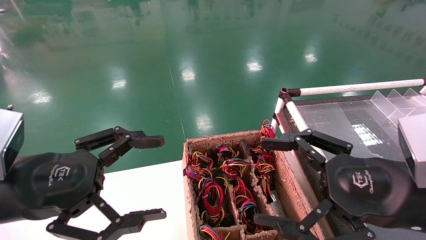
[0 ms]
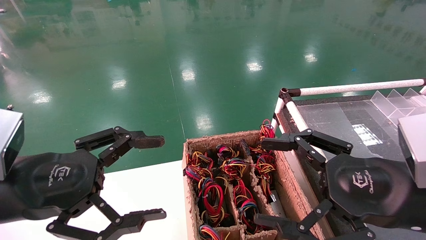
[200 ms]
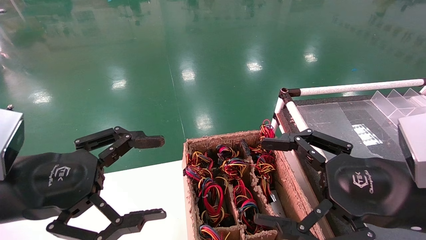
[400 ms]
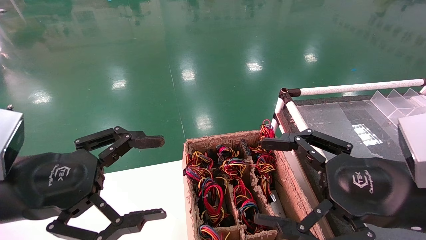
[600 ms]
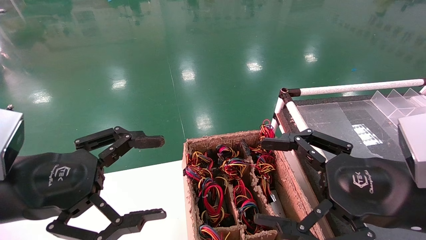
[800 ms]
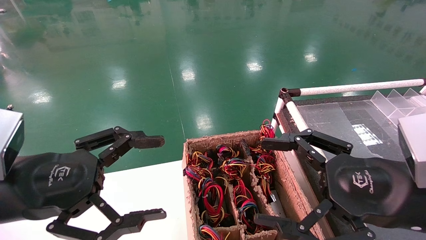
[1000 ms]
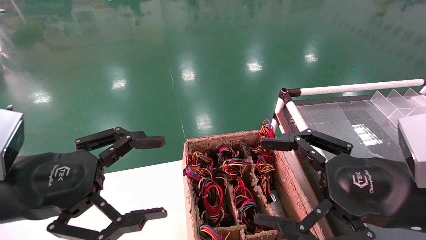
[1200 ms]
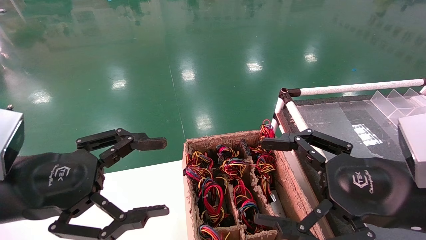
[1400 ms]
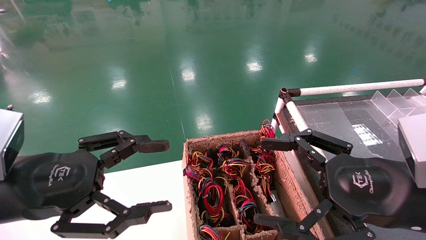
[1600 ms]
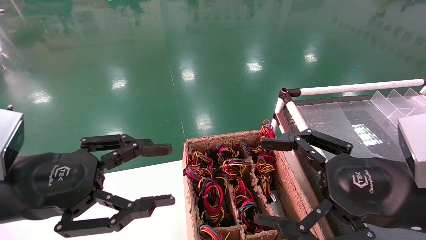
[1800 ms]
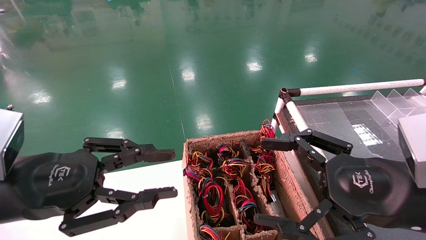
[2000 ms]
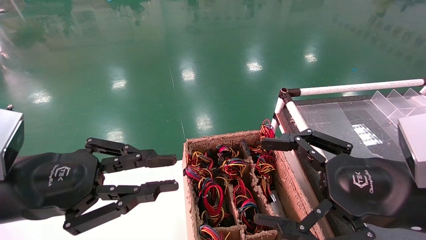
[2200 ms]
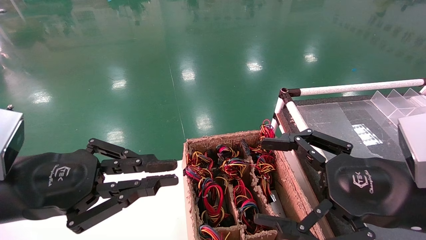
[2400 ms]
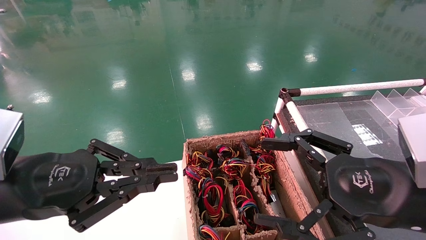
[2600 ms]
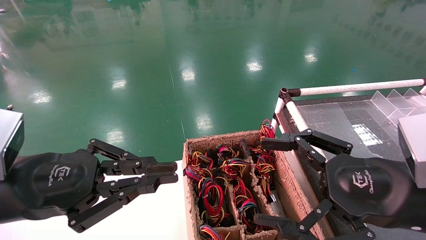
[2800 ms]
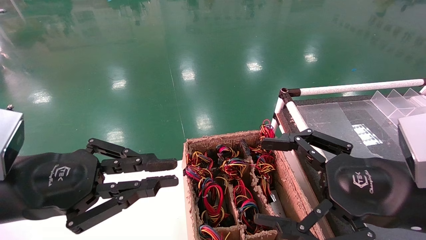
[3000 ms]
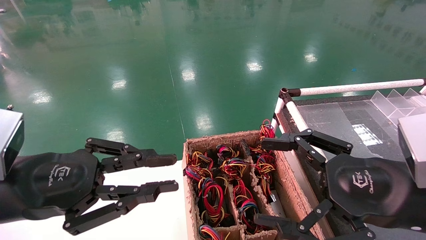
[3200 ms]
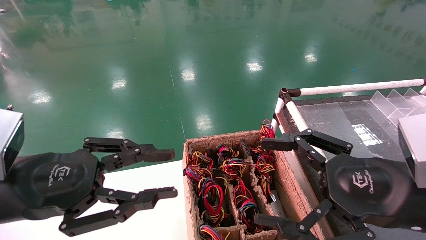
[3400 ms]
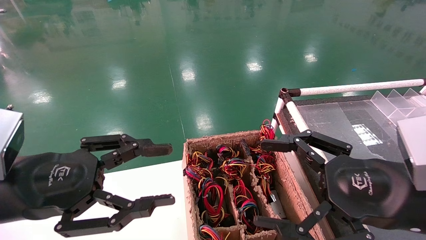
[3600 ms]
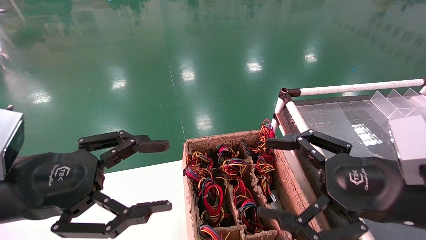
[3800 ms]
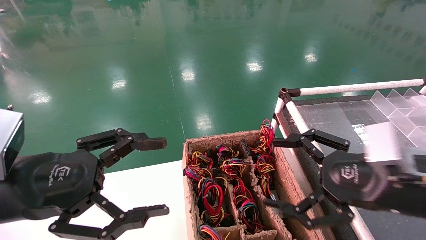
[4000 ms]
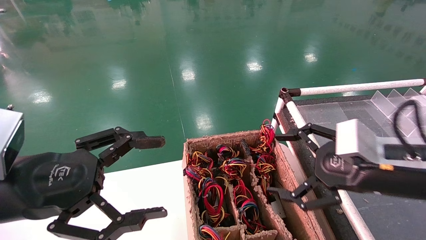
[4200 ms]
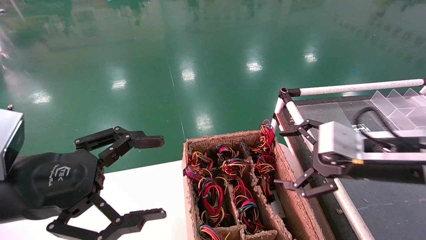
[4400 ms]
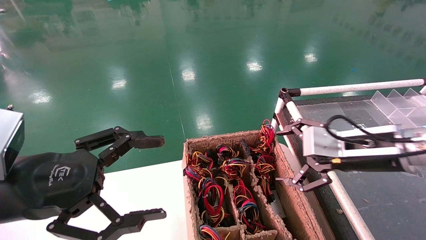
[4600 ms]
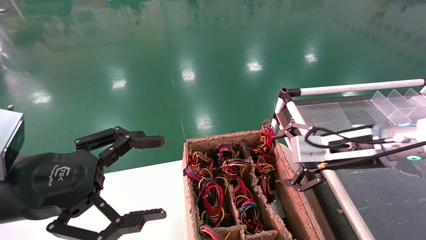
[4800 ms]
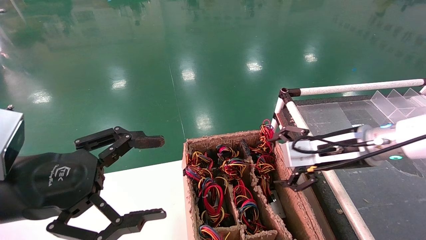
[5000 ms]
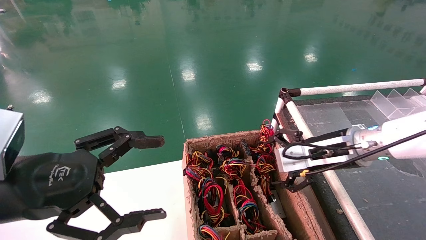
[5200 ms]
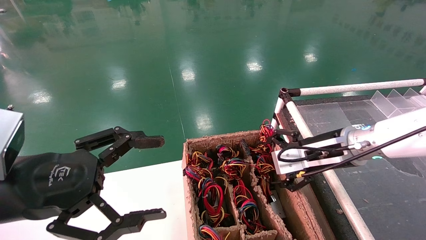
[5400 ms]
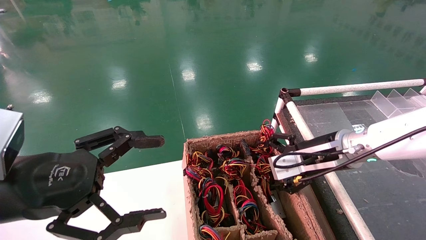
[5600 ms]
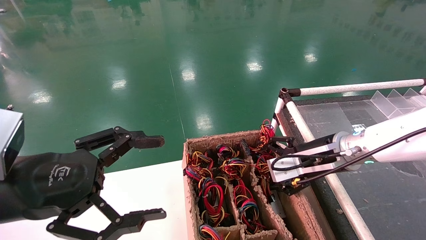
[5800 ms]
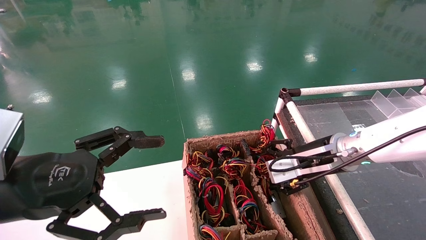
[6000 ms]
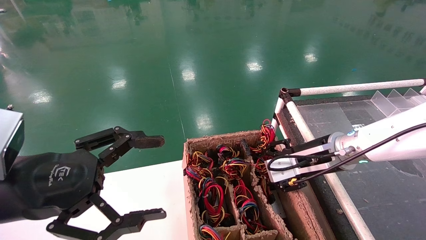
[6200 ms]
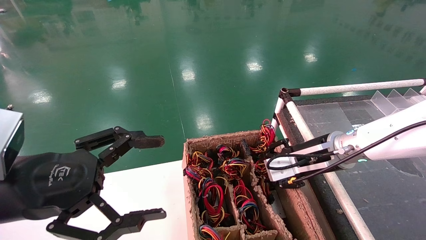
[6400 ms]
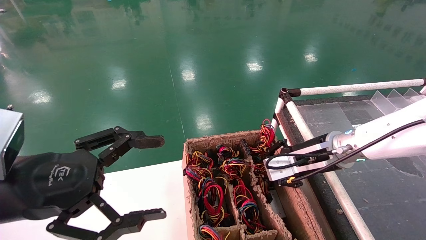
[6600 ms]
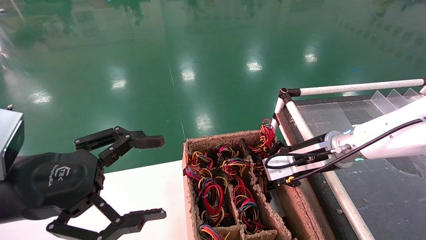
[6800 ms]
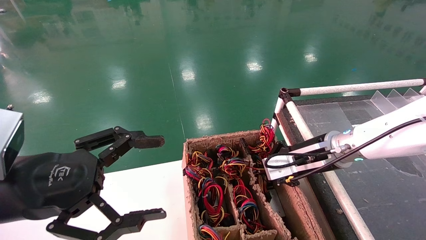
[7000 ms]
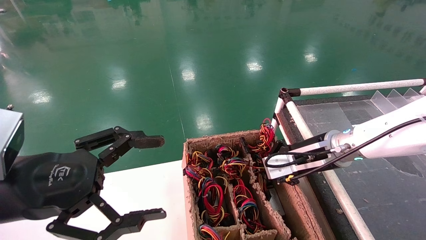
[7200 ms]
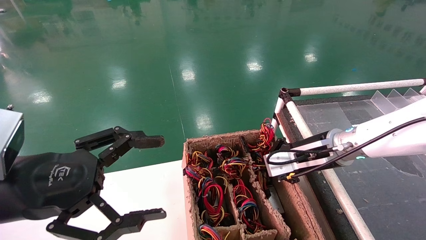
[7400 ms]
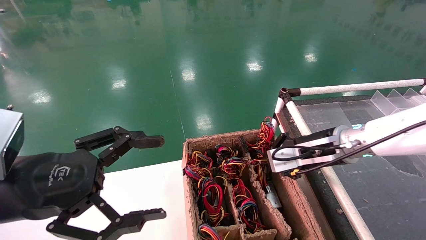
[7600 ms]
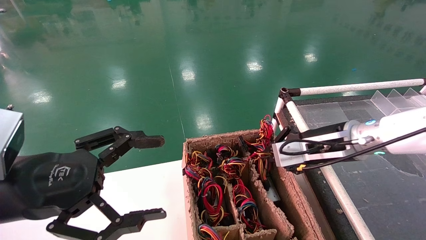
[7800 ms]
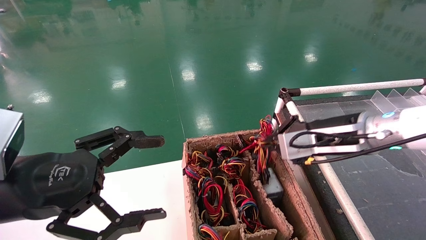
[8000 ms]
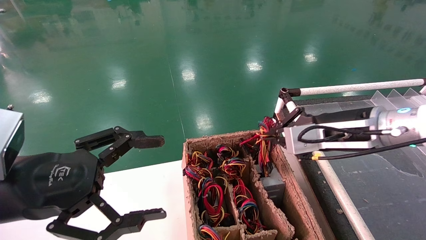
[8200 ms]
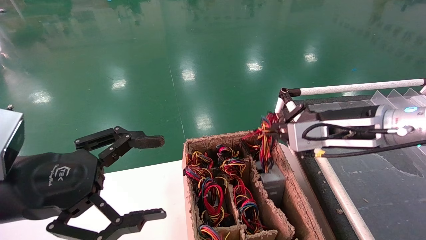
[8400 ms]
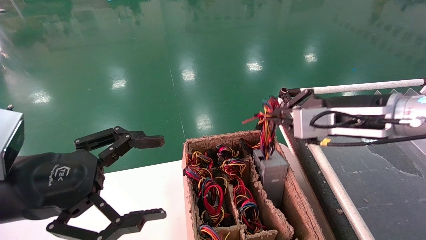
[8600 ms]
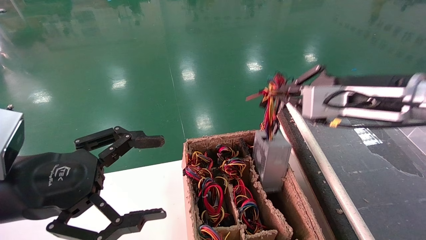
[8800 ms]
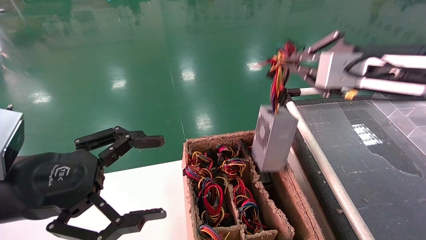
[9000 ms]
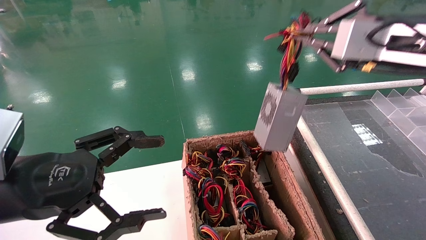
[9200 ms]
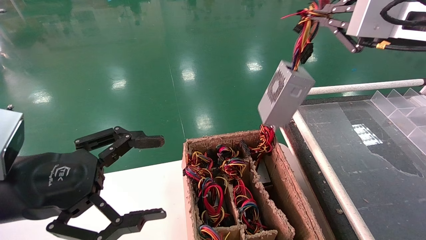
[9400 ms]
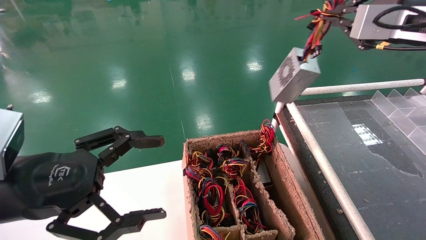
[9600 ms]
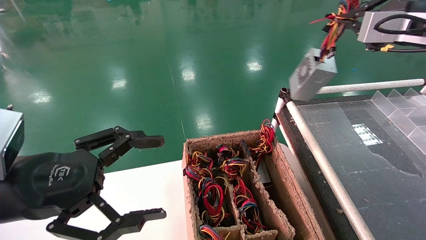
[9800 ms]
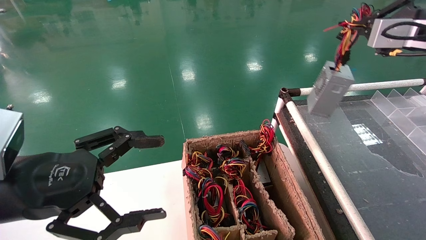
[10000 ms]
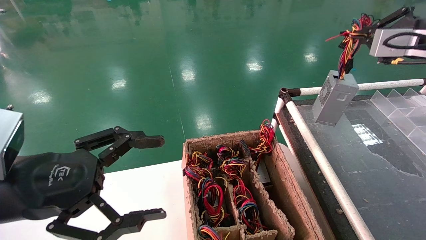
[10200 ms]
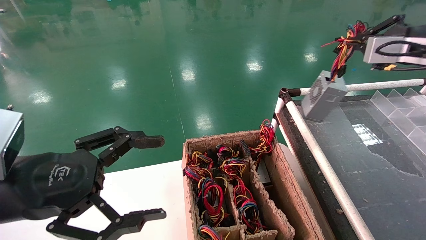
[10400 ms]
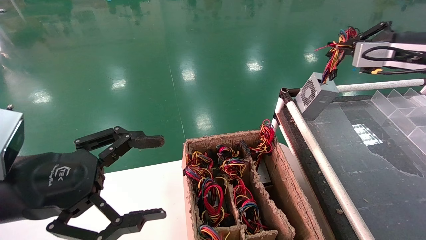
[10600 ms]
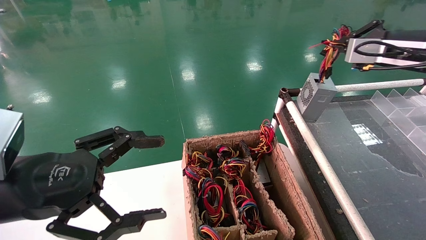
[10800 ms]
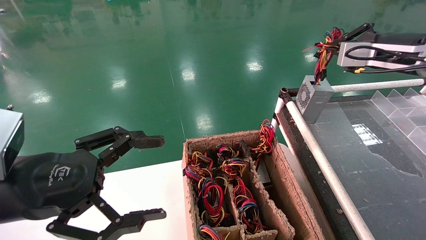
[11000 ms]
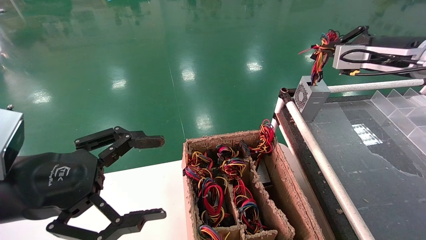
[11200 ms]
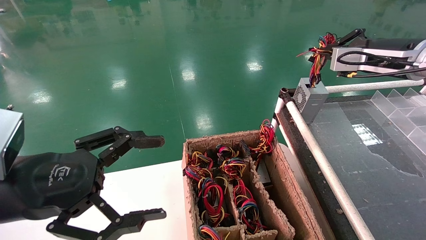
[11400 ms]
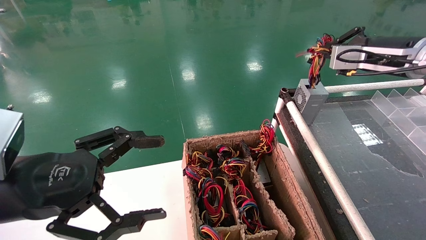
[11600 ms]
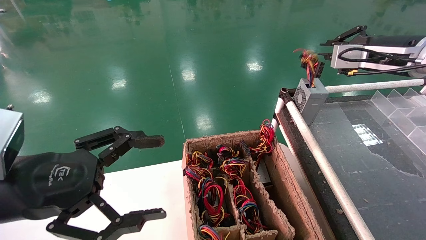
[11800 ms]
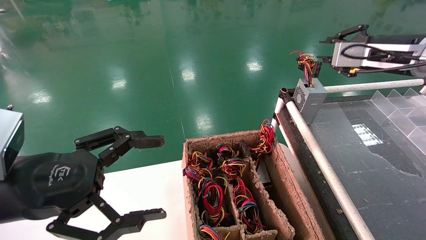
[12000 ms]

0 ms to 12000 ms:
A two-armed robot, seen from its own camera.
Step, 2600 ms to 7000 ms: Grab and lift the power supply from the large box.
Step, 7200 ms to 11800 ms: Place the power supply on the operating table.
0 ms to 1600 ms: Both grippers stay put.
1600 ms to 3000 ms: The left gripper closes.
3000 ms to 4400 ms: The left gripper opens its fingers, while the right gripper moves forward, some 10 cm.
4400 ms to 6000 ms: The right gripper goes about 10 cm forward and to the left.
6000 ms to 7600 ms: The right gripper closes.
7600 ms to 9000 ms: The right gripper is displaced upward and backward by approximately 15 cm.
9000 ms to 10400 ms: The right gripper travels to the right and forward by roughly 15 cm.
10400 ms to 12000 ms: The grippers make only small movements.

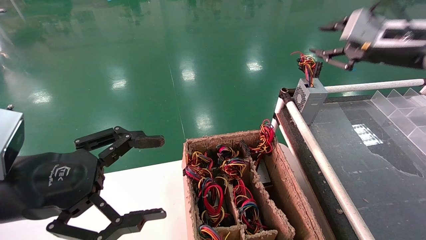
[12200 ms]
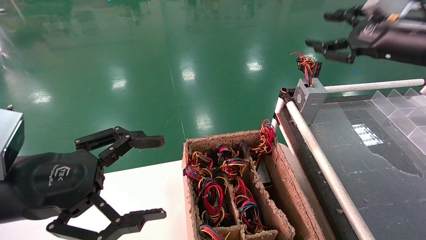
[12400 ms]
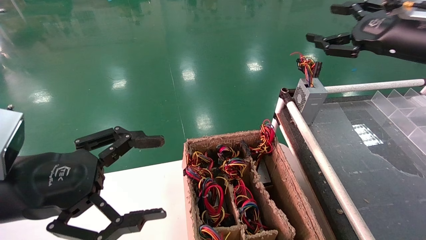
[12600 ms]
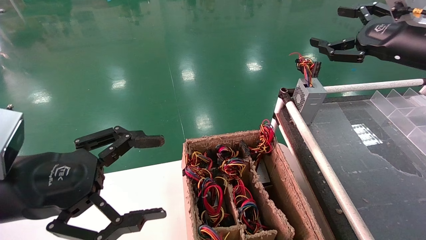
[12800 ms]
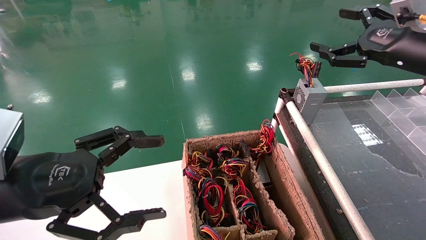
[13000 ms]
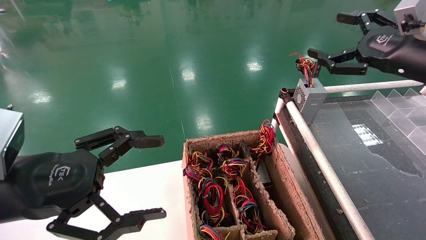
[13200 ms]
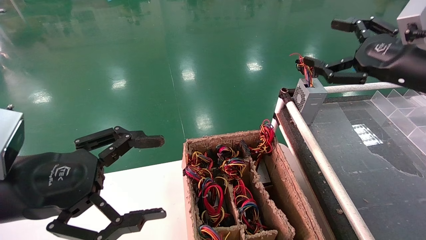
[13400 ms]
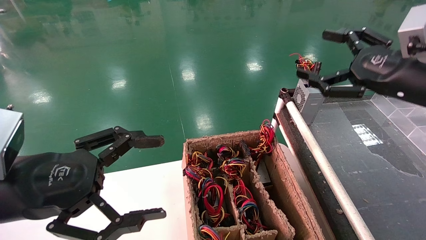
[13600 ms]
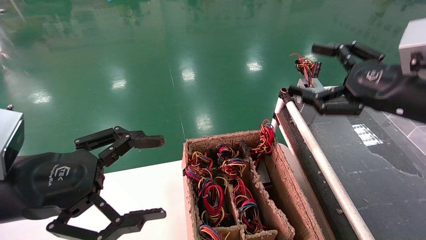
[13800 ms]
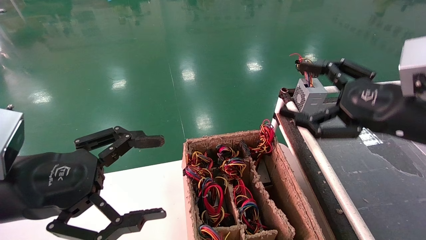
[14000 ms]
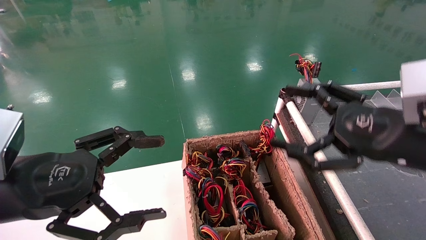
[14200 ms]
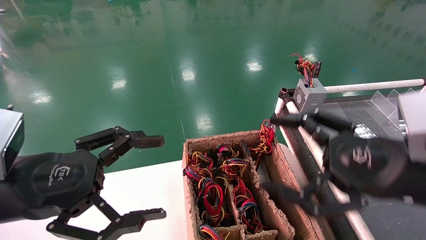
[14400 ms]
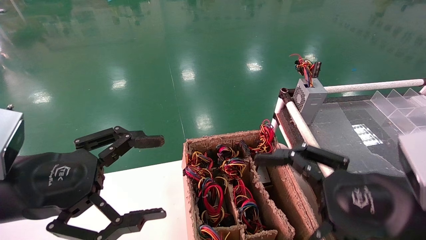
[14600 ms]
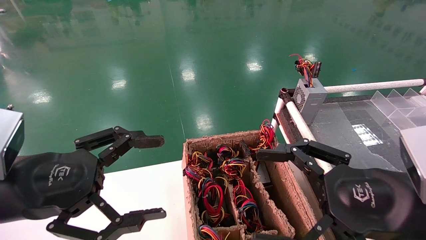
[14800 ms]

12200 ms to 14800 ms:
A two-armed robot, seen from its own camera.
12200 ms to 13400 ms: The right gripper heads backward, covering roughly 5 cm, and opens up.
13400 ms to 14800 ms: The right gripper moves backward, downward and to the left, about 20 cm.
